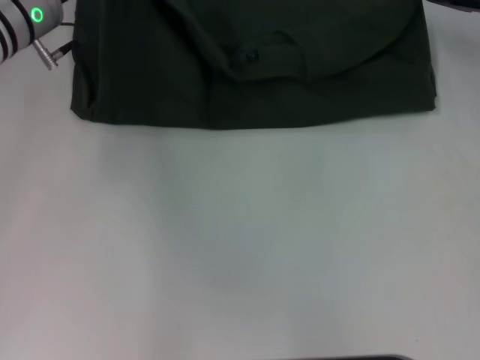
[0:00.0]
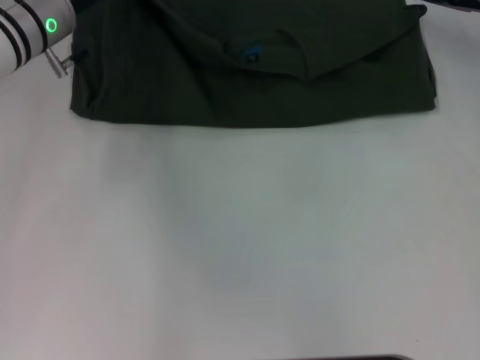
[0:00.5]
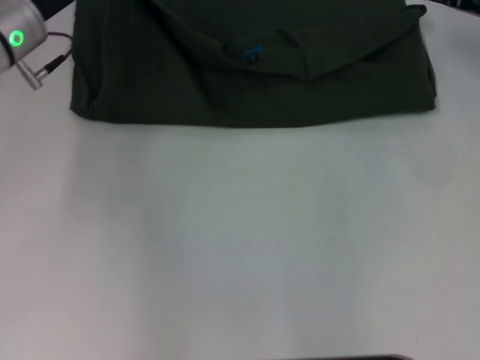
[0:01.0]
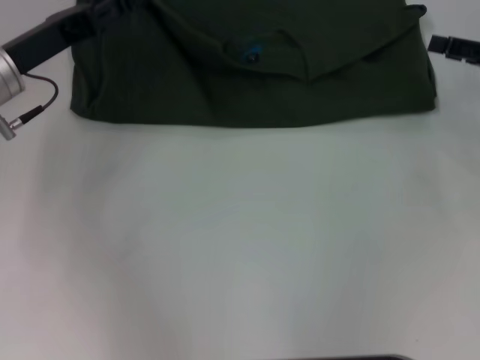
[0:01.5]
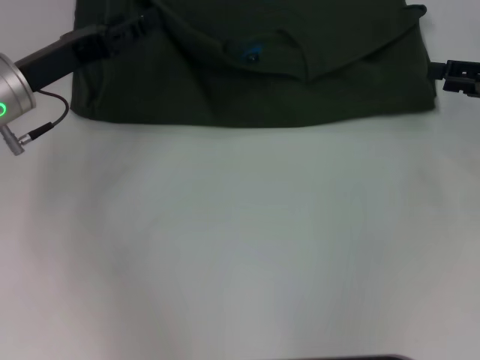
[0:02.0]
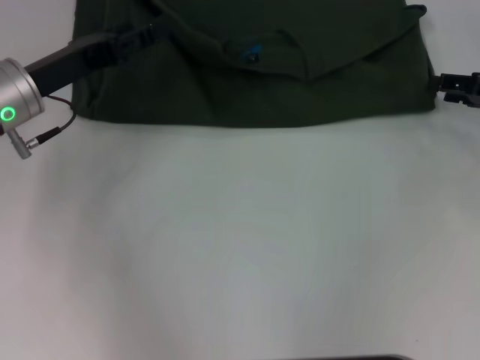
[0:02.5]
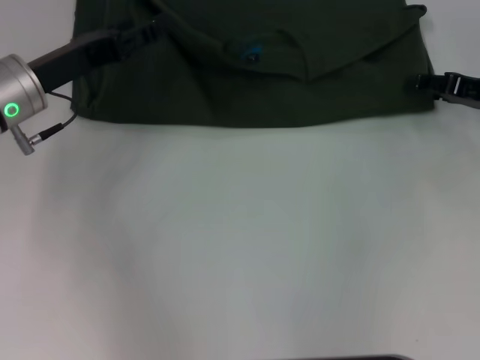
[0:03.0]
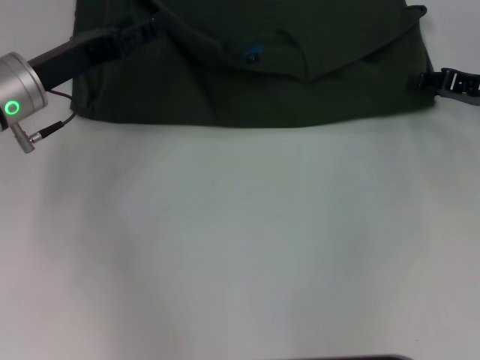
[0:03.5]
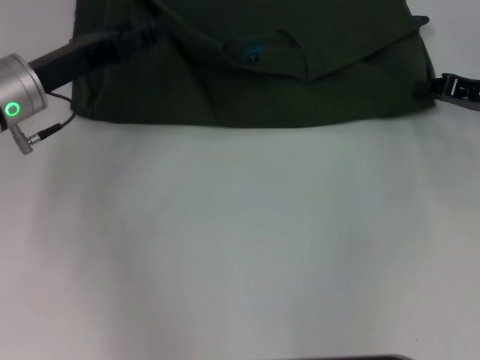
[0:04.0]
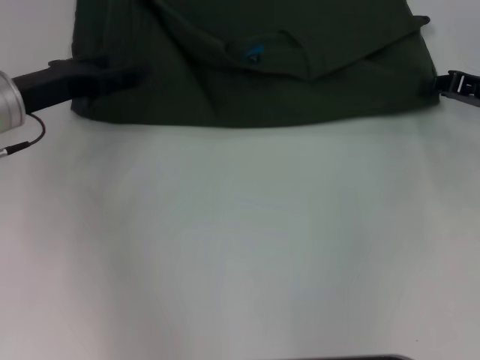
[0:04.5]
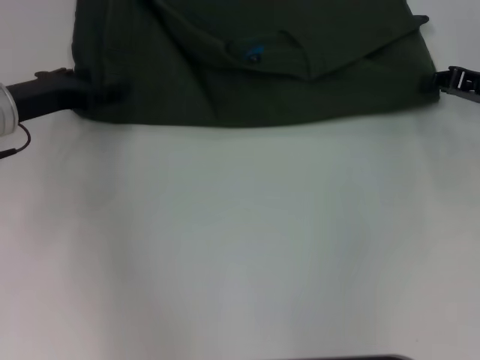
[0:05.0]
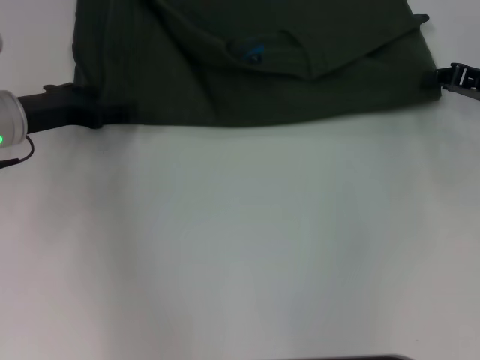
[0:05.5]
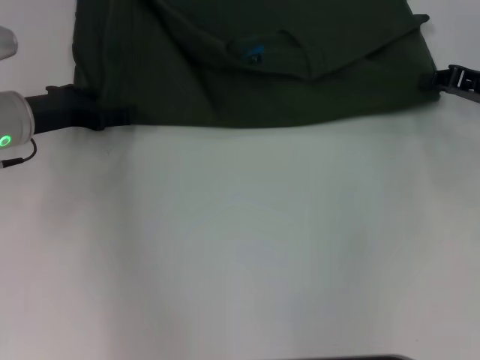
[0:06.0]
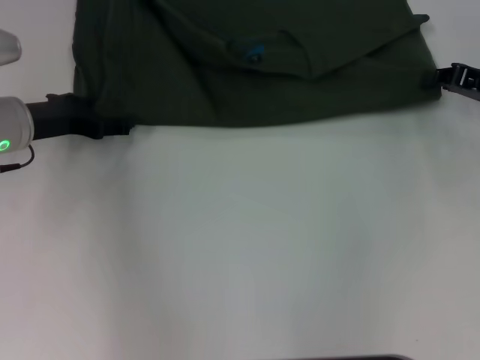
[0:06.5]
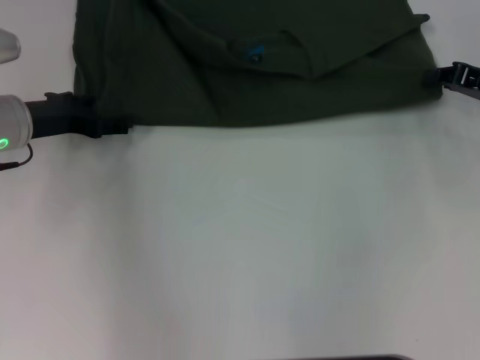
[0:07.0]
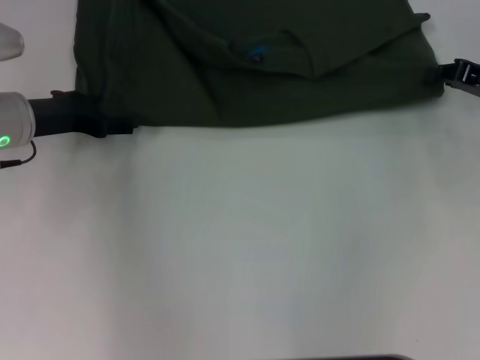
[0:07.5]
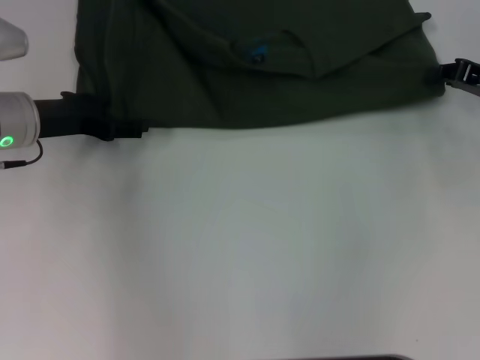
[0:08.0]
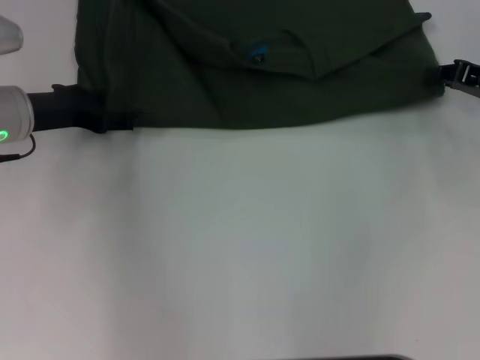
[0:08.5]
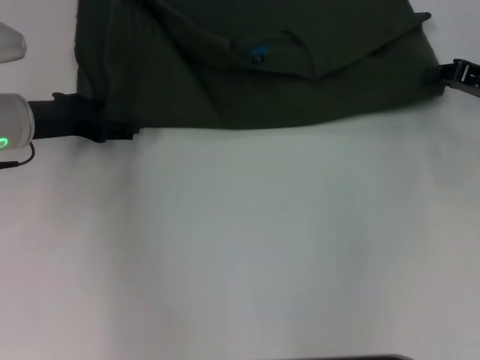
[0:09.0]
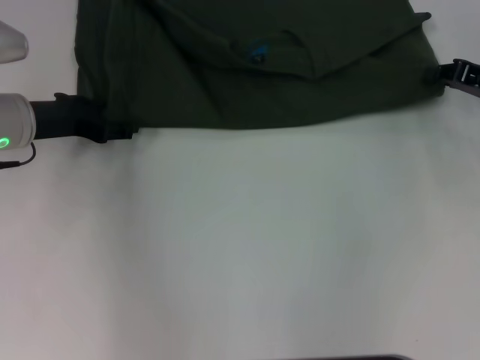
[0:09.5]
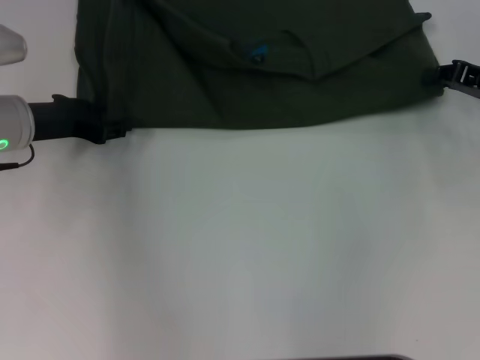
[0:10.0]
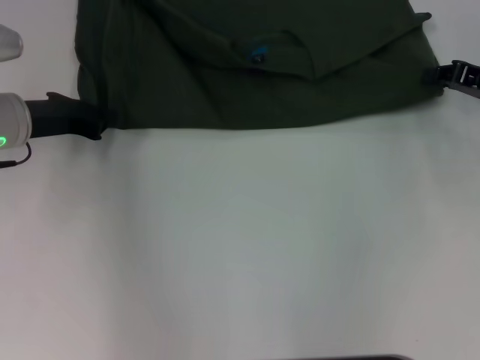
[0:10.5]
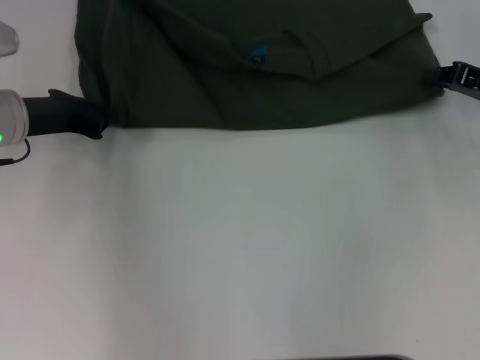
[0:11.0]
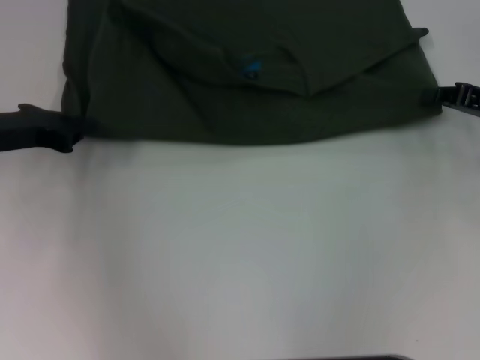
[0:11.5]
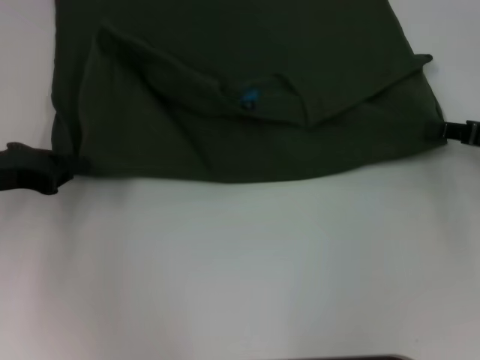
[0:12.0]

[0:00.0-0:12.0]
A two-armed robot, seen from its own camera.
0:00.0 to 0:02.0: The left gripper heads backward, covering roughly 10 cm, and opens its fingers, while the right gripper goes some 10 cm backward and to the right, and opens.
0:02.0 to 0:04.0: The right gripper closes its fingers.
0:06.0 to 0:08.0: The grippers stay close to where they were, moving slightly.
0:08.0 to 0:10.0: The two grippers keep their place.
0:10.0 to 0:12.0: The left gripper heads backward and to the left, covering about 10 cm, and closes up. Meanwhile the right gripper travels backward by approximately 5 cm.

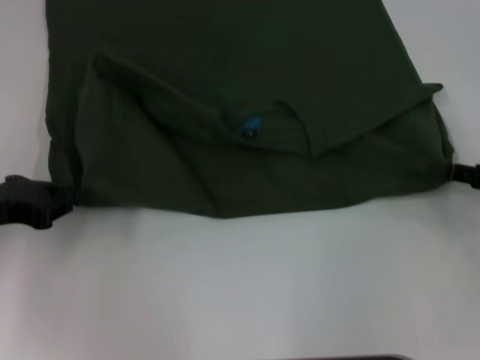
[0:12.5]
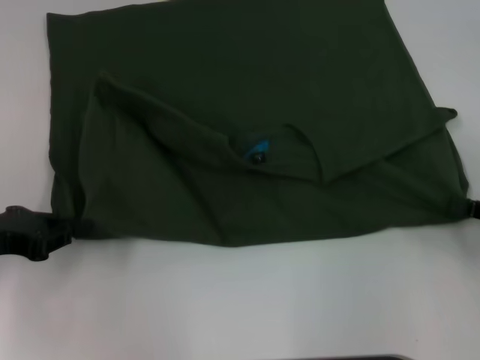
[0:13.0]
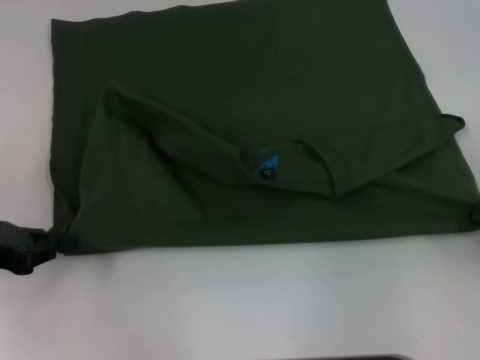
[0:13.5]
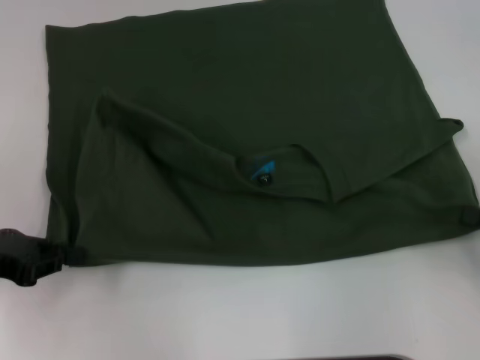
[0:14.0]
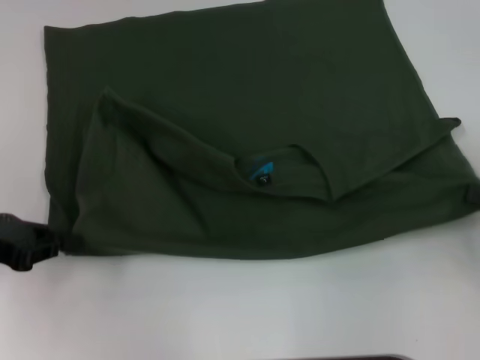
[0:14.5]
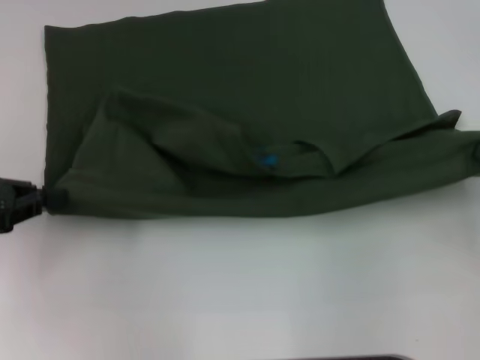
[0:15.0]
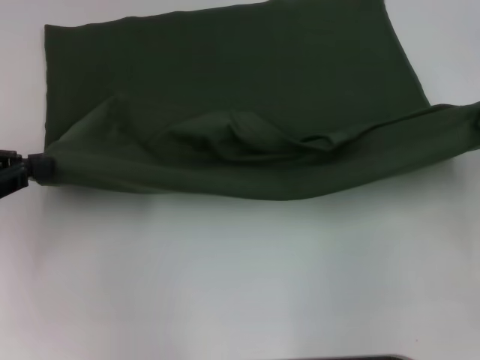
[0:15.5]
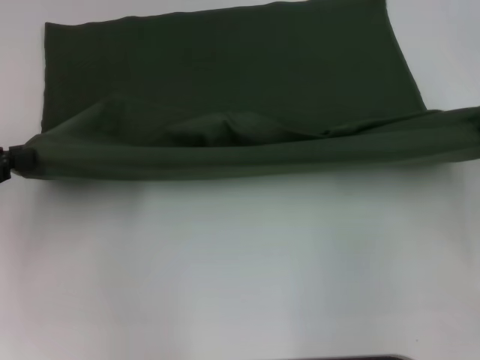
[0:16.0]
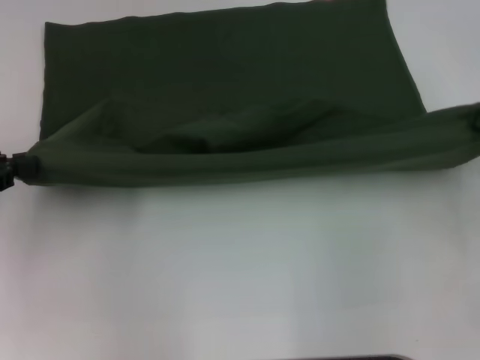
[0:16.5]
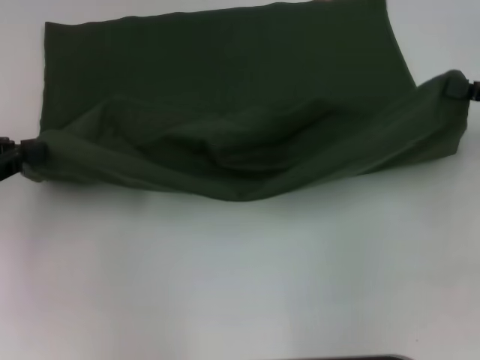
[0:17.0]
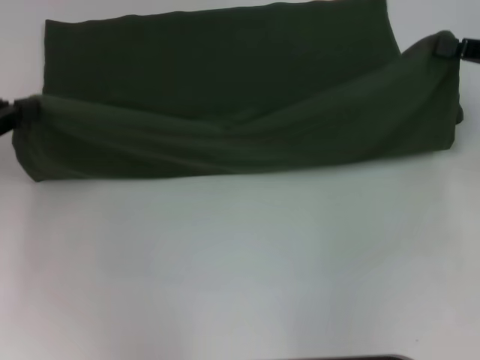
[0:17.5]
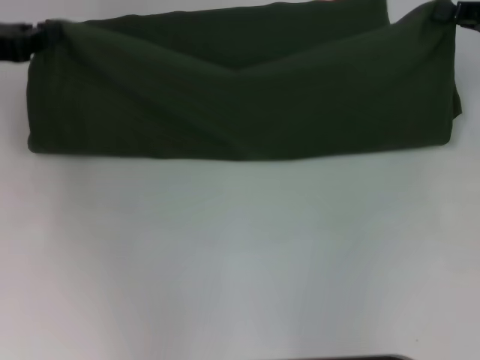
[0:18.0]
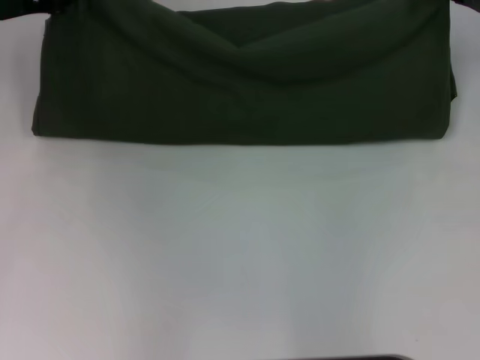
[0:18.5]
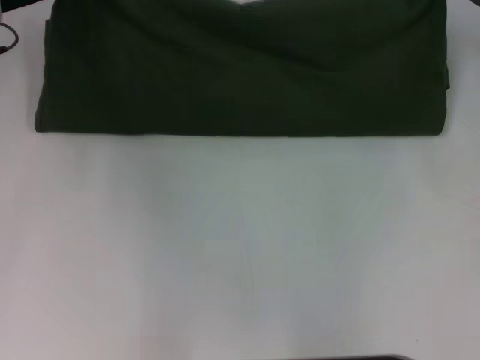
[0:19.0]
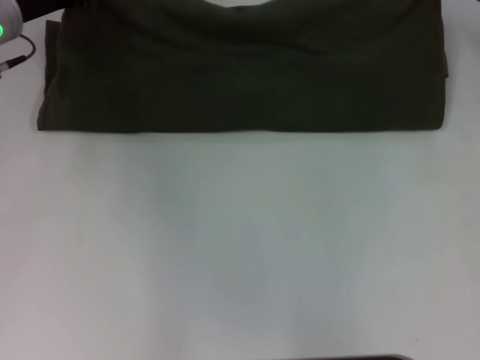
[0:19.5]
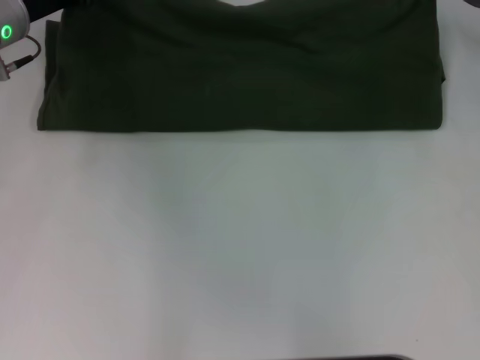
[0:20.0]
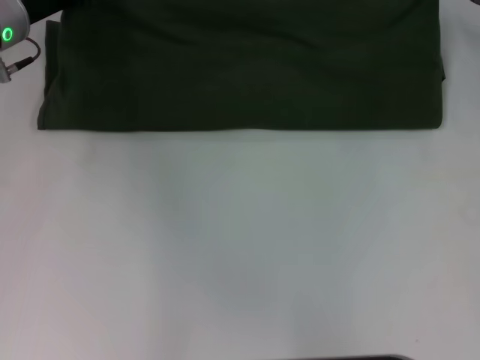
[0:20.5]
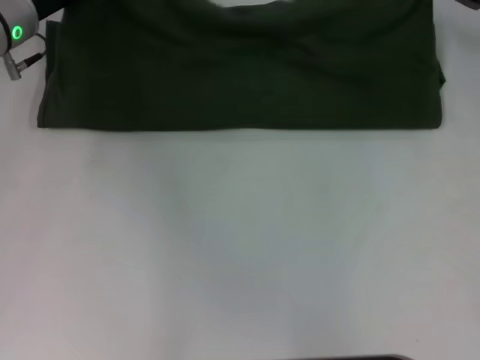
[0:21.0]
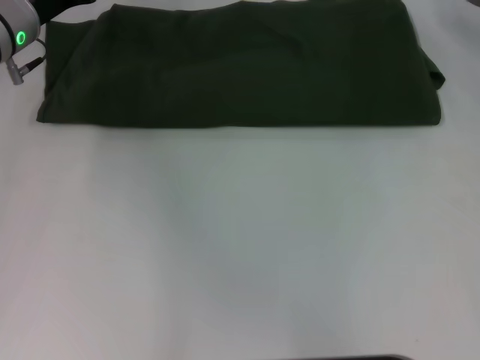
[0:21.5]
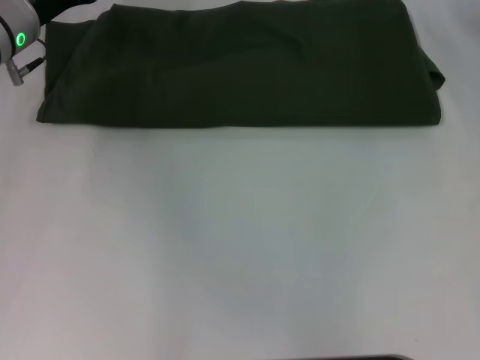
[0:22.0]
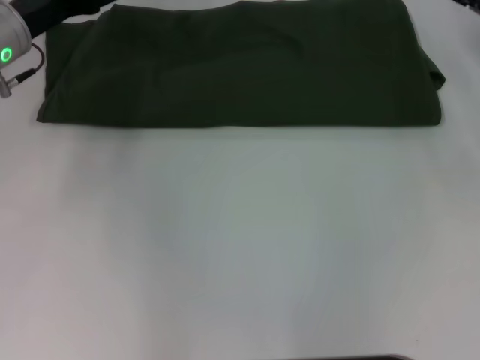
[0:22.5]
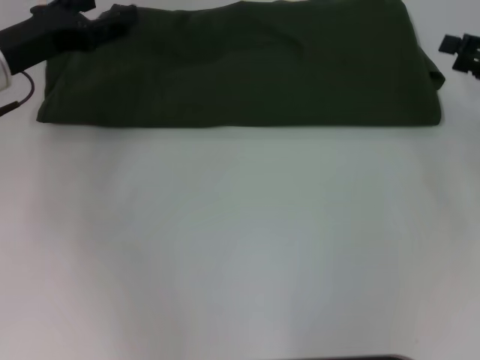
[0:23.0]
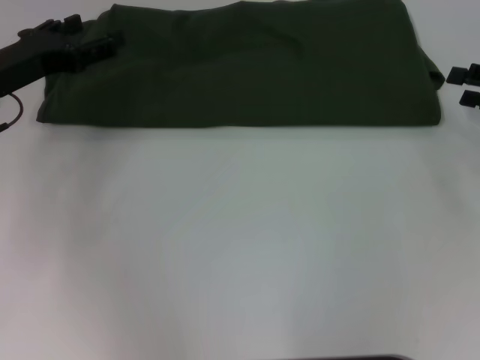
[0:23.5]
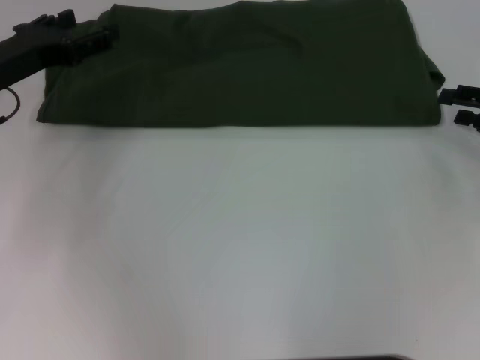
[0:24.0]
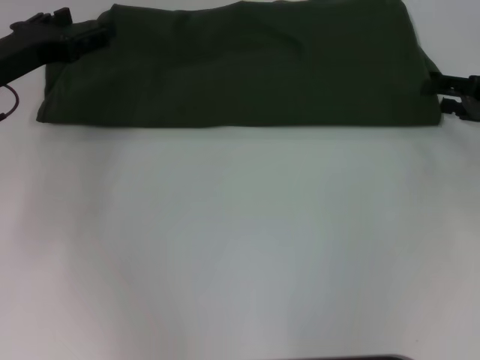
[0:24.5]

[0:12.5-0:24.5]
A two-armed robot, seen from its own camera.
Step, 0:13.5 to 0:21.5: Fold the clothes with your left hand.
Step, 0:13.5 to 0:21.5: Fold the clothes with your right hand.
0:12.5 to 0:14.5: The right gripper moves roughly 5 cm.
0:14.5 to 0:16.5: The left gripper changes place by some 5 cm. The right gripper changes place by about 5 cm.
0:16.5 to 0:18.5: The right gripper is displaced forward by about 15 cm, while the left gripper goes some 15 cm forward and to the right.
0:18.5 to 0:20.5: The left gripper ends up about 5 cm from where it was.
0:20.5 to 0:22.5: The right gripper changes place by some 5 cm, and opens up, while the left gripper opens up.
0:22.5 to 0:24.5: The left gripper changes place by approximately 5 cm.

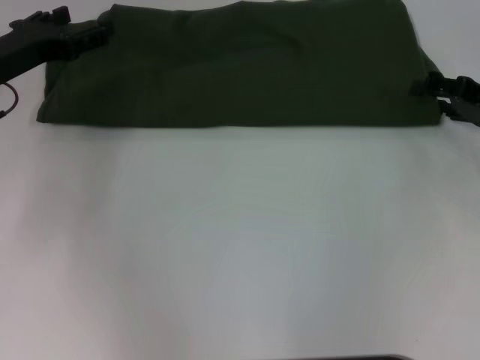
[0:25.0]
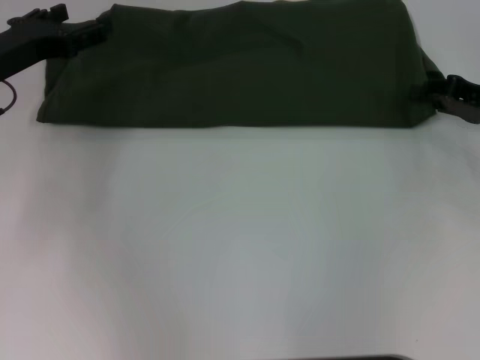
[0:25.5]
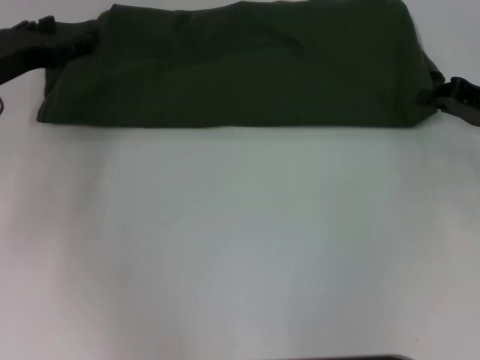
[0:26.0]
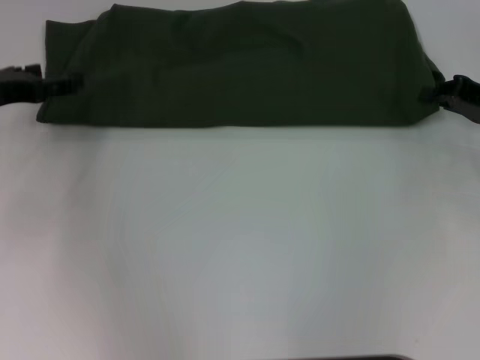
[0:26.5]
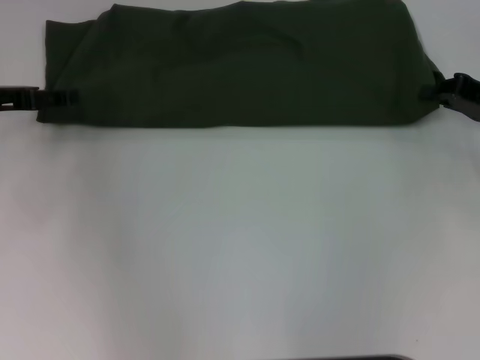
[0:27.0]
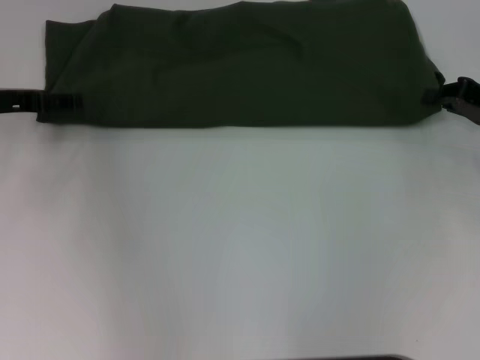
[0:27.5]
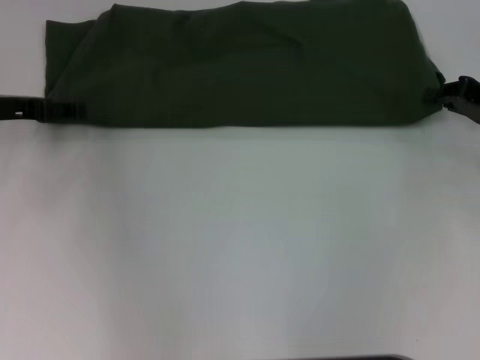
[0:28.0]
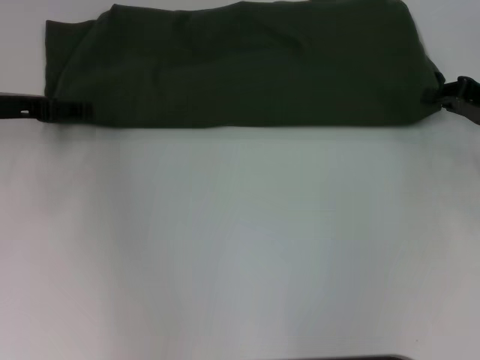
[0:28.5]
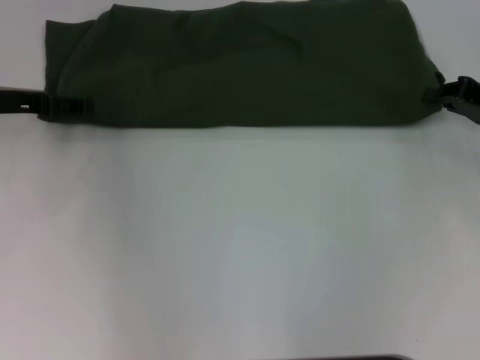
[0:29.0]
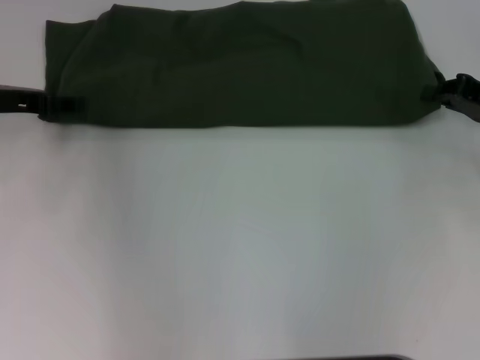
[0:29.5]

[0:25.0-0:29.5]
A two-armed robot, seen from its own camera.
0:25.0 to 0:27.0: The right gripper closes up.
